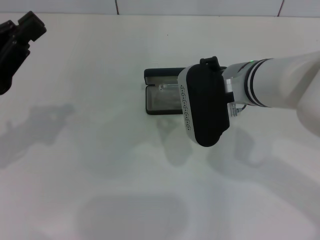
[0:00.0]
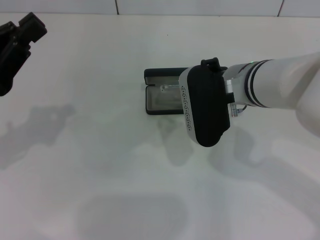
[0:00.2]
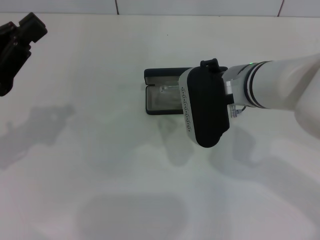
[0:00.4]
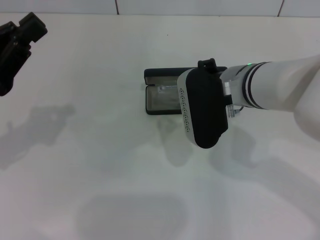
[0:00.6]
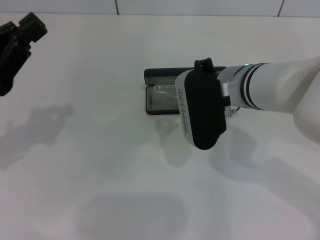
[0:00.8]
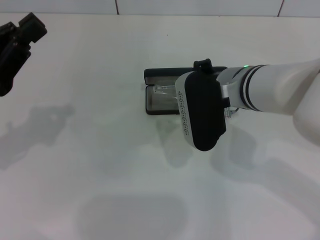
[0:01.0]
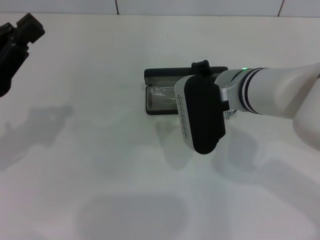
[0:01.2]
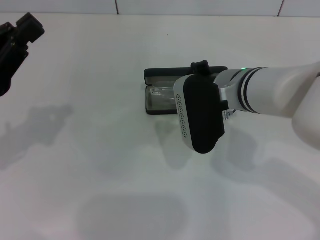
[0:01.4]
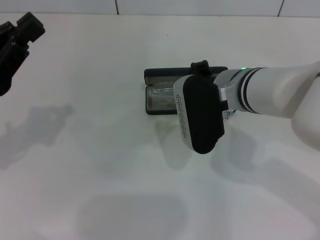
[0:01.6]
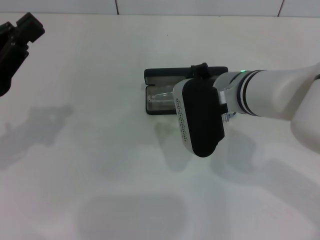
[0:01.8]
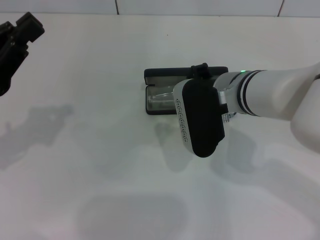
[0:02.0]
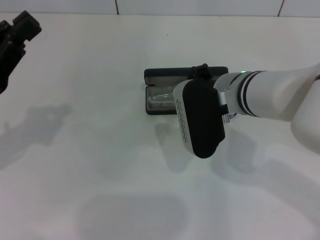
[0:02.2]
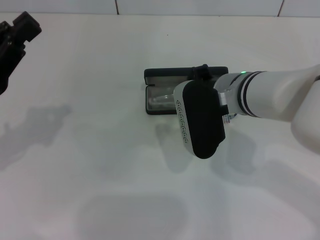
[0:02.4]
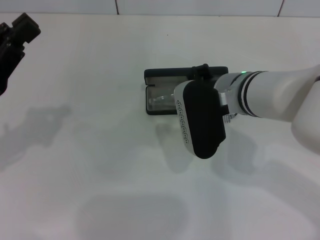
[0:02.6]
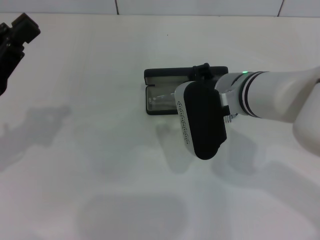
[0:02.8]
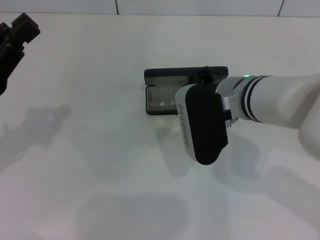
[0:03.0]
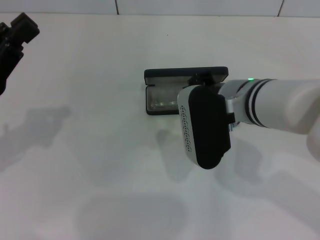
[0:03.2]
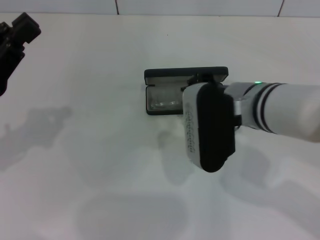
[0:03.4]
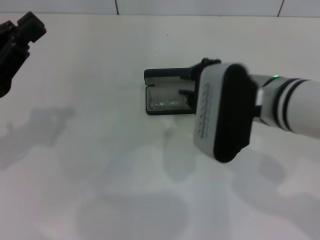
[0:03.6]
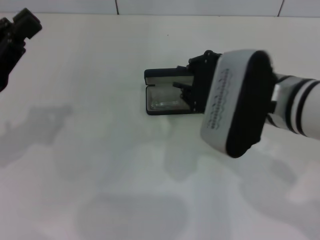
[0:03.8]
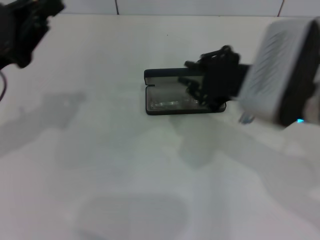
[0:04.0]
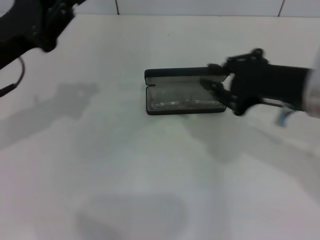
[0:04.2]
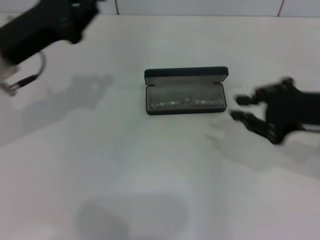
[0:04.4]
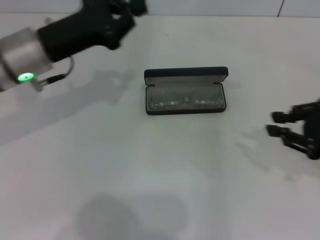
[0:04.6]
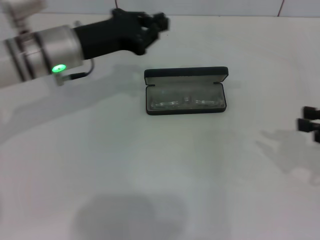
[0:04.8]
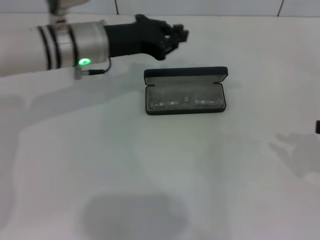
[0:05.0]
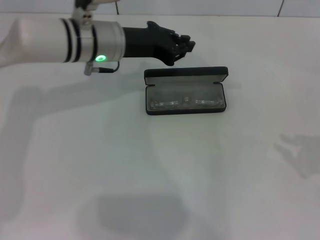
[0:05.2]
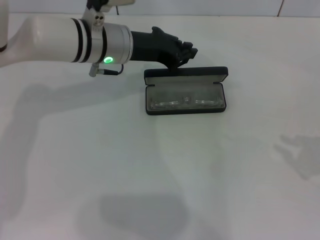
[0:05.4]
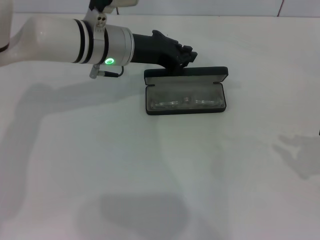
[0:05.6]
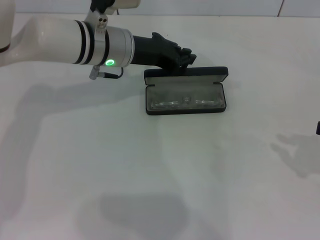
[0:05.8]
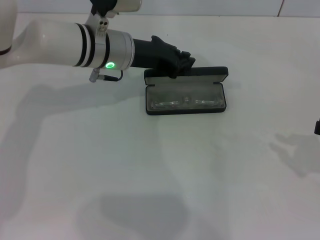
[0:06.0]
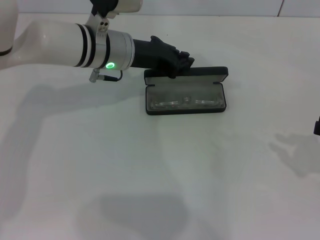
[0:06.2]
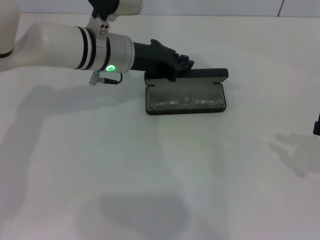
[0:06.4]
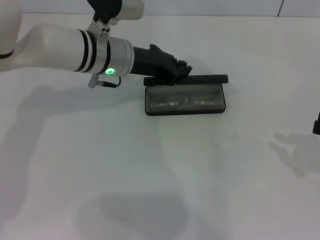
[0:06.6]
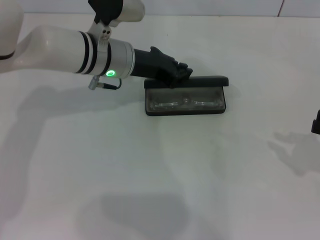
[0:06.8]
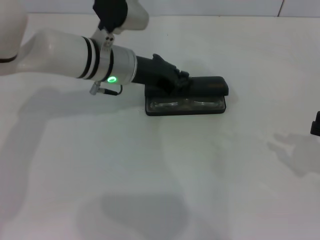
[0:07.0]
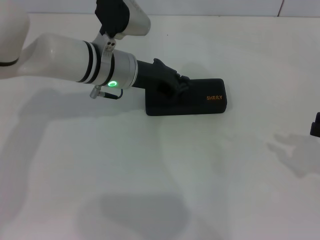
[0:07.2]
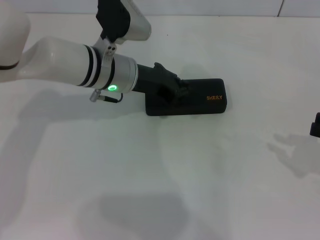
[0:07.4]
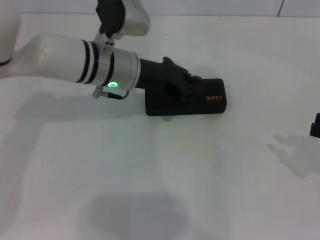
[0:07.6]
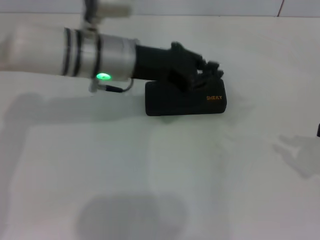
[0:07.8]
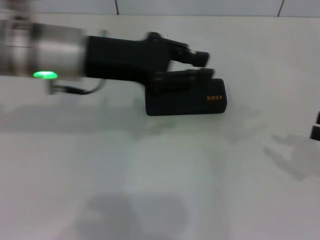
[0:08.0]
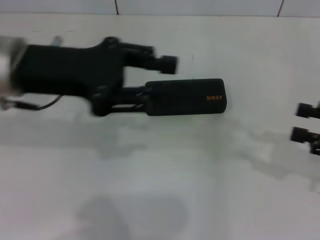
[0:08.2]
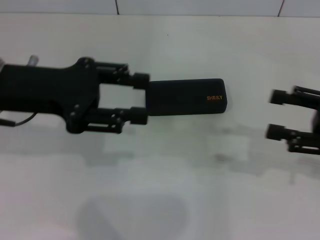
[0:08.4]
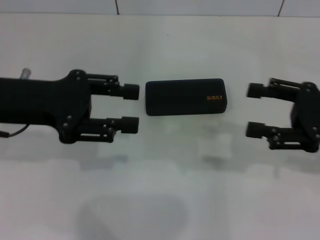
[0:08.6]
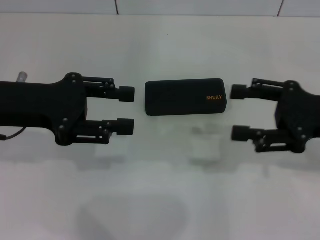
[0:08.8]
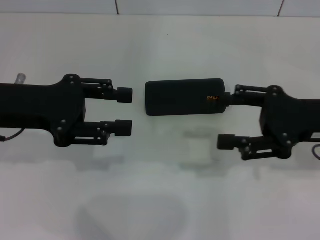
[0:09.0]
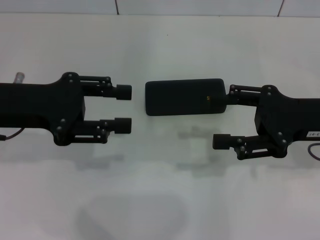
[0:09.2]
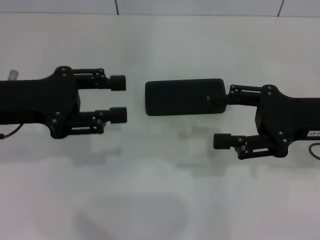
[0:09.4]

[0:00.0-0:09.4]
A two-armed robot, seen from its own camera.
Step, 0:00.0 to 0:03.2: Put the glasses into the case with your right hand.
Step, 0:03.4 to 0:07.2: Close the glasses case with your left hand.
0:00.0 to 0:03.2: The grippers make only small movements.
0:03.2 to 0:04.8: The left gripper shifts some 20 cm forward and to the right, while the right gripper heads to the right, covering approximately 25 cm.
0:04.8 to 0:06.2: The left gripper heads to the right, covering some 5 cm.
0:06.2 to 0:07.8: The left gripper shifts by roughly 5 cm.
0:07.8 to 0:09.4: The right gripper is displaced to the left and forward by about 15 cm, and opens, while the left gripper goes roughly 15 cm to the left and backward, and opens.

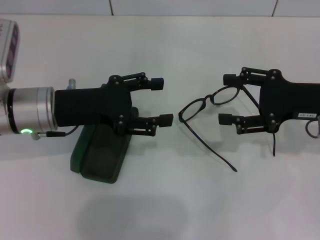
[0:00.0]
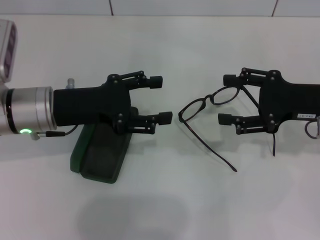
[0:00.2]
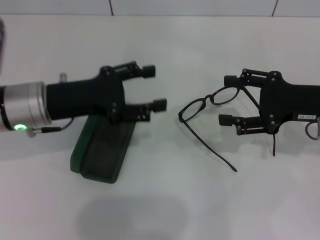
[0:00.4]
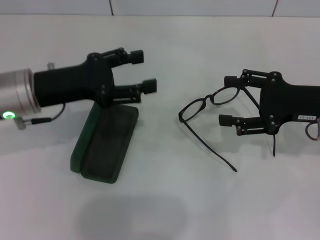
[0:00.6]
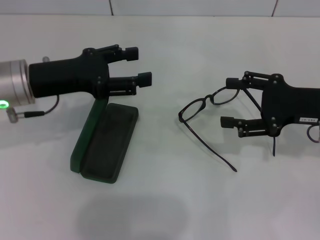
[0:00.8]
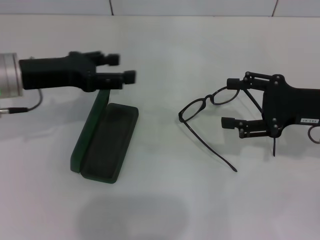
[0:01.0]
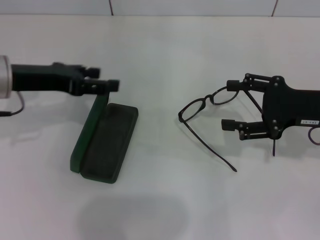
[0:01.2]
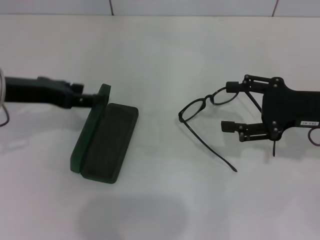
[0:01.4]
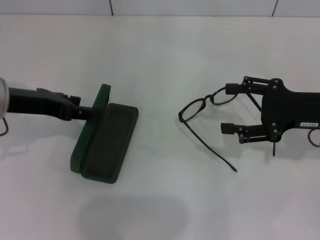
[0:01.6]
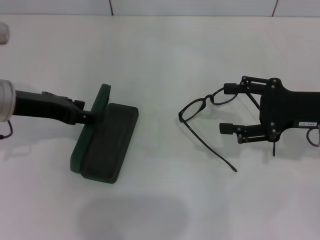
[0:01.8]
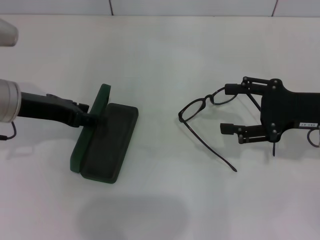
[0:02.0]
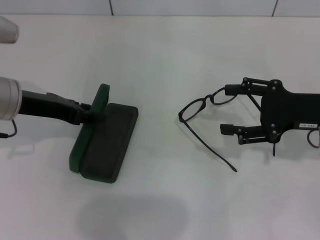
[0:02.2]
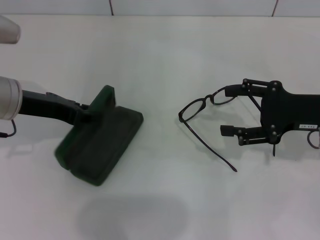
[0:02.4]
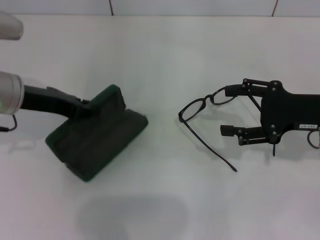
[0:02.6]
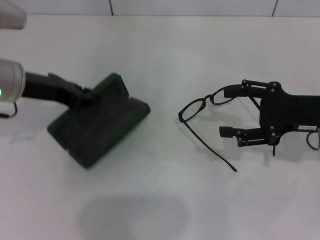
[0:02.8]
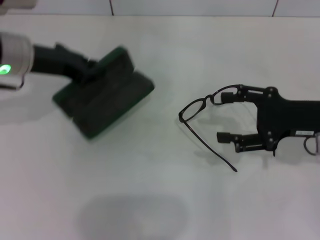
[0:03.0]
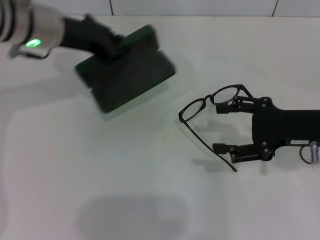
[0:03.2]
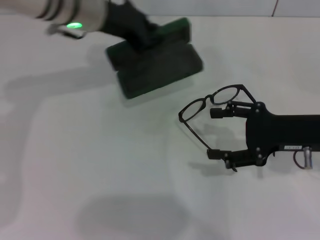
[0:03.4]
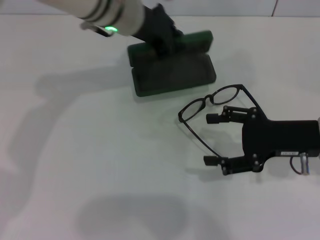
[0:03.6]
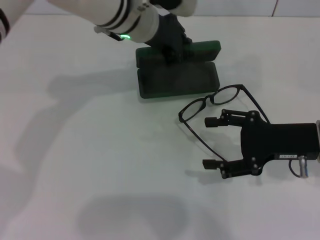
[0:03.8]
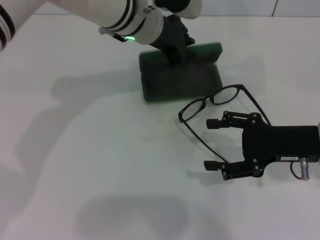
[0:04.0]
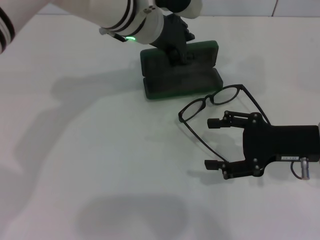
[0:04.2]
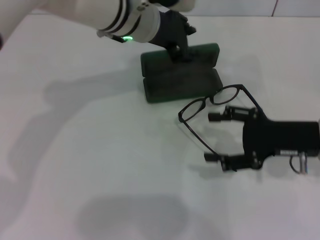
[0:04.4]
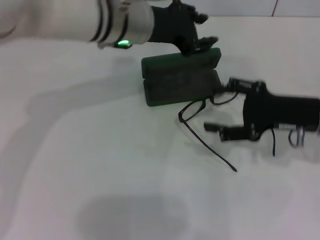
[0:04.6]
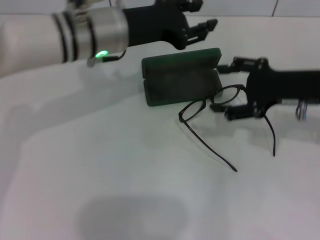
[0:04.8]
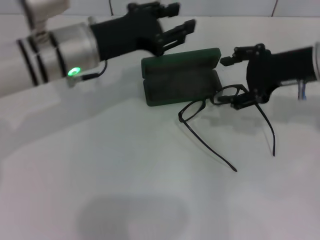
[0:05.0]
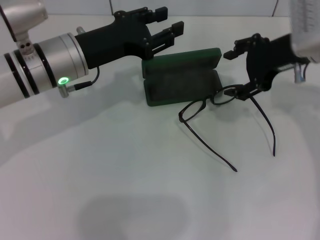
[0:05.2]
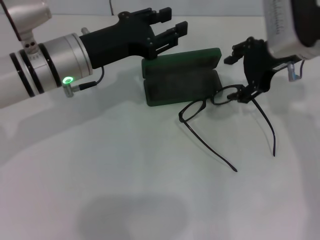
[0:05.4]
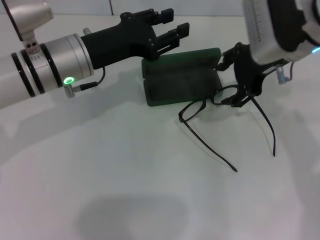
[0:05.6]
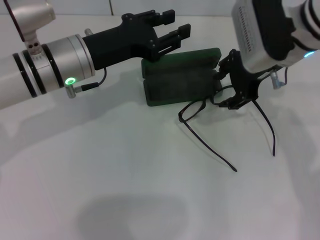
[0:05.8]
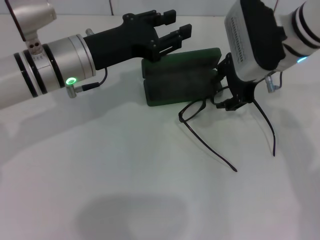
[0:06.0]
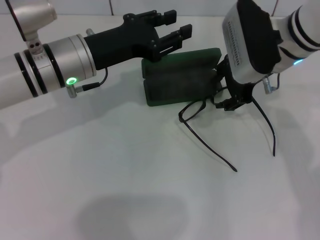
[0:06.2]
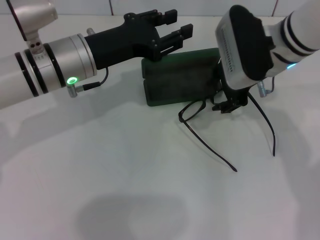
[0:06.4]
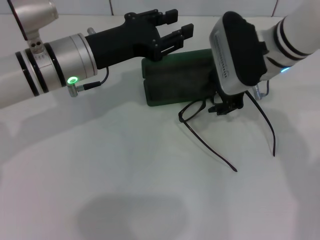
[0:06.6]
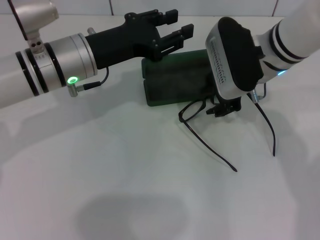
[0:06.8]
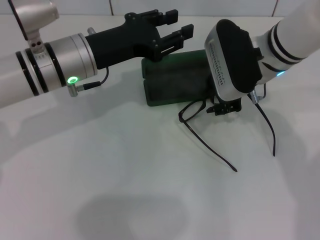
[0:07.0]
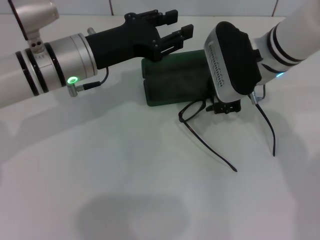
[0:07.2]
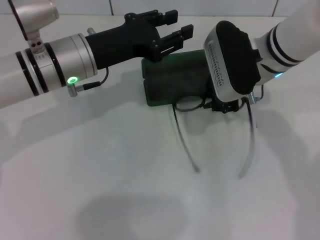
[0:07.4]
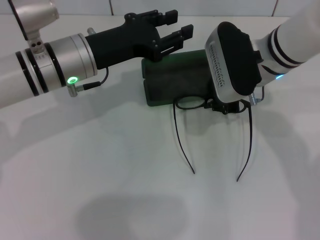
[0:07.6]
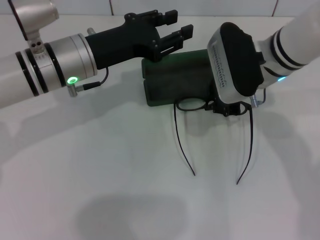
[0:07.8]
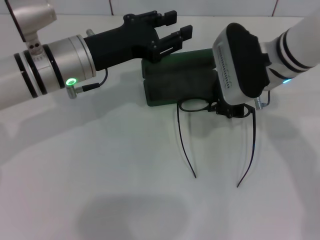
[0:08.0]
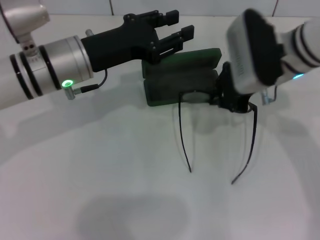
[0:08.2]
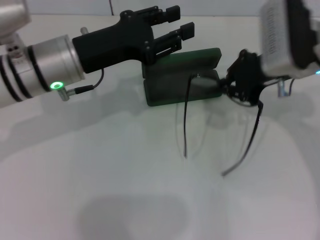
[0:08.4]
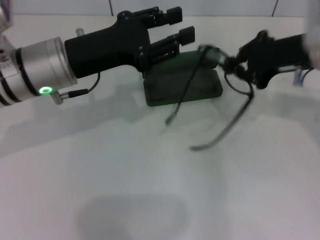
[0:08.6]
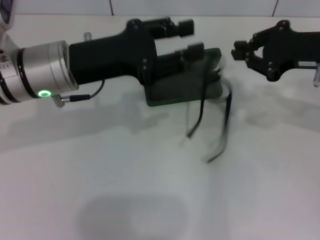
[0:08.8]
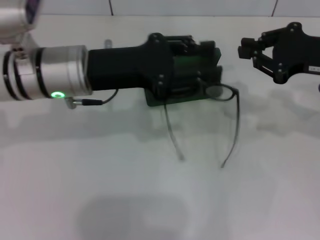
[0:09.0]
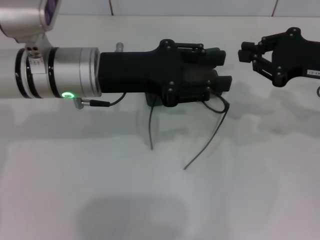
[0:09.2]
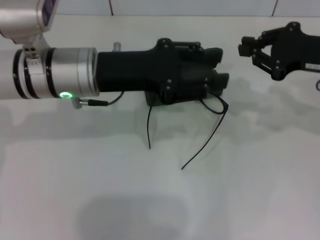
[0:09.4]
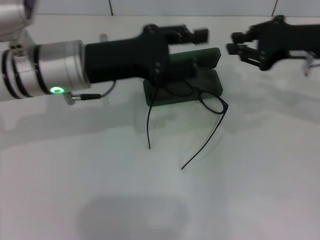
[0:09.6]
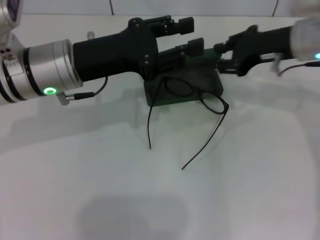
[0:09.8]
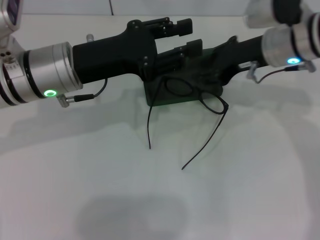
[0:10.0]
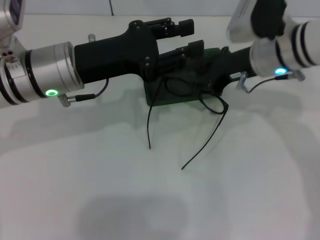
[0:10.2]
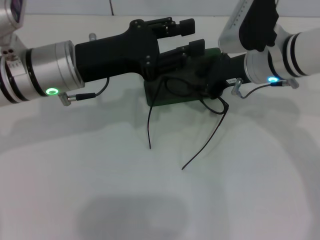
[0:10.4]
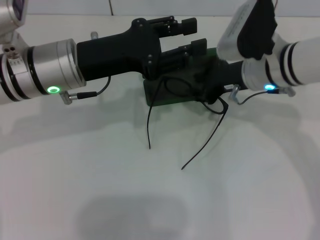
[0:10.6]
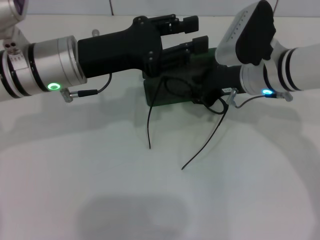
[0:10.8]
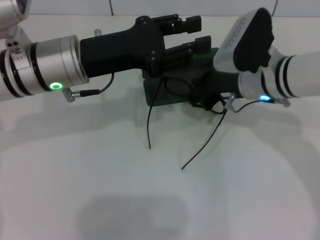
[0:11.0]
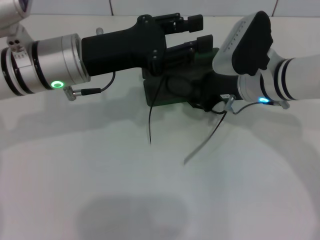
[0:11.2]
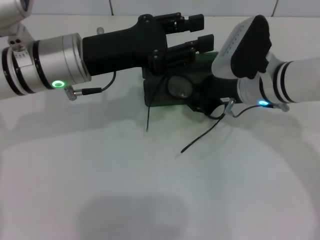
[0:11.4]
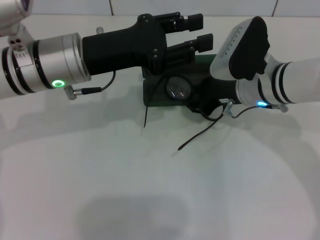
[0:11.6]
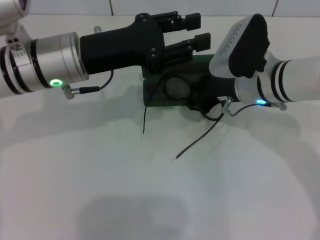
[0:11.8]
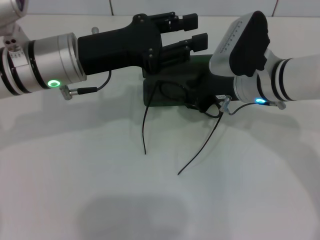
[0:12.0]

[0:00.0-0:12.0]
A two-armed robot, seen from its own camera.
Step, 0:00.0 to 0:02.4: Grab the glasses case with your left hand.
Step, 0:02.6 to 0:04.0: Place the glasses case in the center of the table with your left hand.
0:00.0 to 0:01.6: The left gripper travels to the left by approximately 5 cm.
0:01.6 to 0:03.0: The left gripper shifts by about 5 cm, and closes.
0:03.0 to 0:04.4: The left gripper moves to the right, about 15 cm.
0:04.4 to 0:06.0: The left gripper moves to the left and backward, about 10 cm. Meanwhile the right gripper moves to the left, forward and upward, roughly 15 cm.
0:06.0 to 0:07.6: The right gripper closes its fingers.
0:07.6 to 0:09.0: The right gripper shifts roughly 15 cm to the right.
0:09.0 to 0:10.4: The right gripper heads to the left, covering roughly 15 cm, and opens its fingers.
0:10.4 to 0:12.0: There are only small adjustments of the grippers.

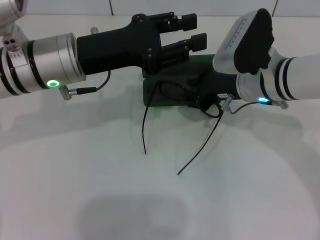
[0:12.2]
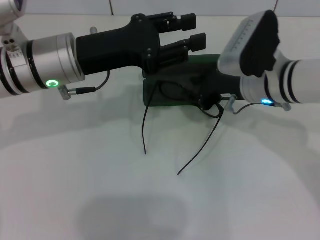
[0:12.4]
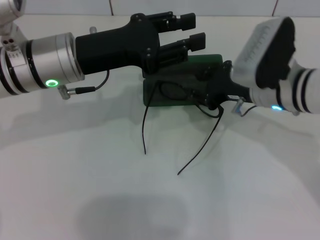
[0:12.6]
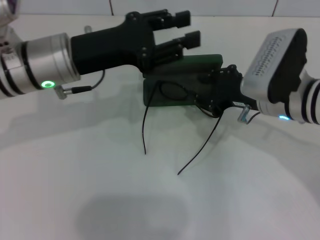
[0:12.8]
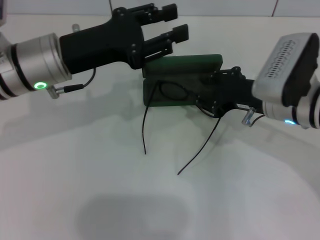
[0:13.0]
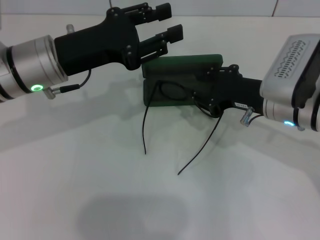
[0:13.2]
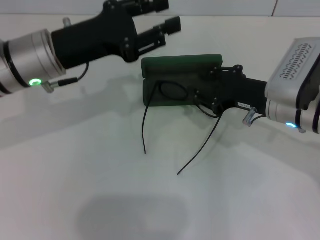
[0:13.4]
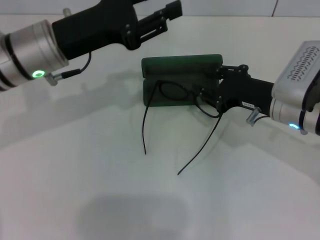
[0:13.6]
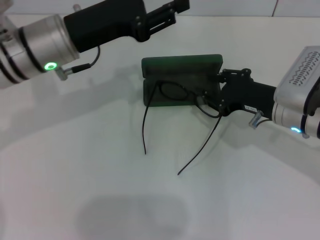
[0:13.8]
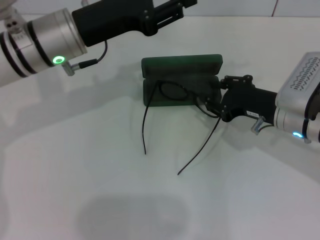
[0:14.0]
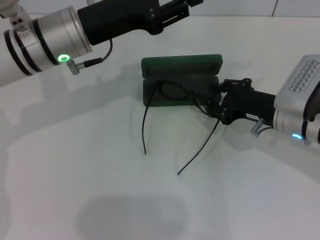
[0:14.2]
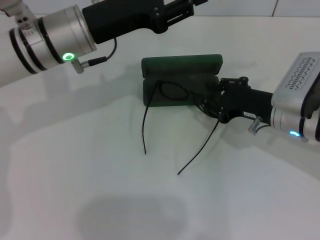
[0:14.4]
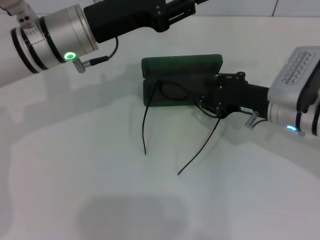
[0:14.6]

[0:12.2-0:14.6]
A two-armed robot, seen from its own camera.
0:12.2 to 0:13.4: The right gripper ends up about 5 cm from where it was.
0:13.4 to 0:14.6: There are only small adjustments of the grippers.
